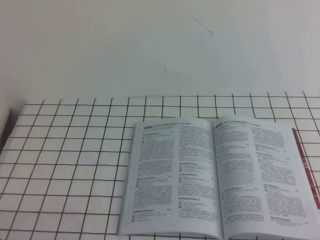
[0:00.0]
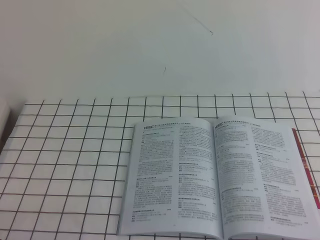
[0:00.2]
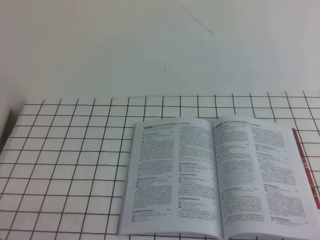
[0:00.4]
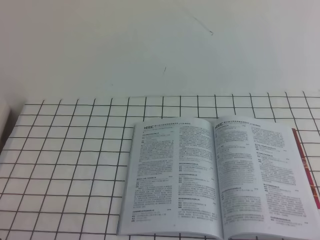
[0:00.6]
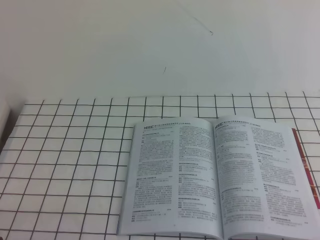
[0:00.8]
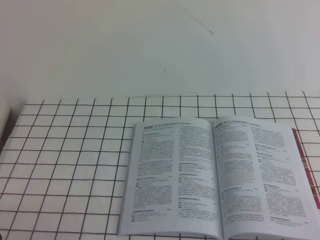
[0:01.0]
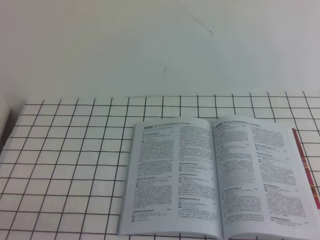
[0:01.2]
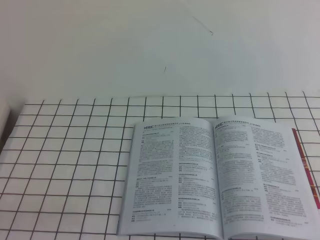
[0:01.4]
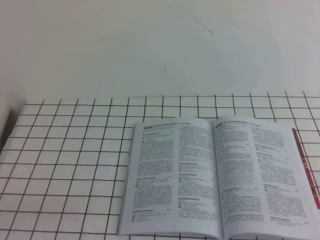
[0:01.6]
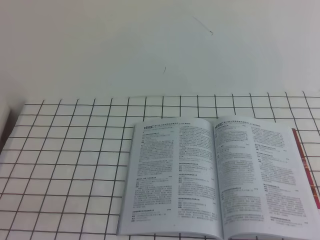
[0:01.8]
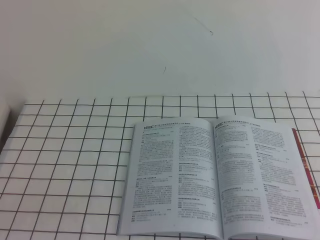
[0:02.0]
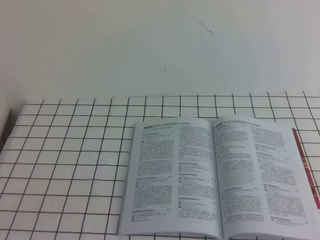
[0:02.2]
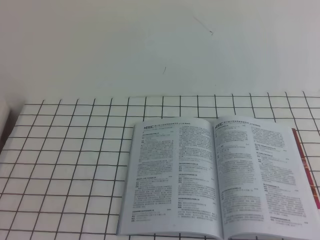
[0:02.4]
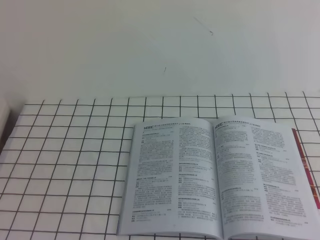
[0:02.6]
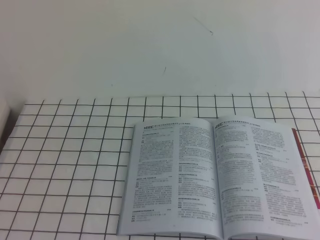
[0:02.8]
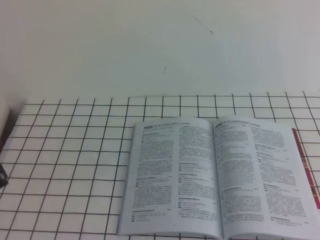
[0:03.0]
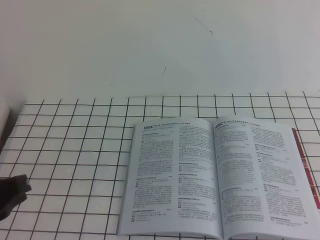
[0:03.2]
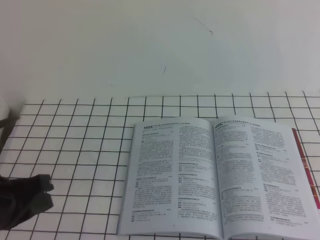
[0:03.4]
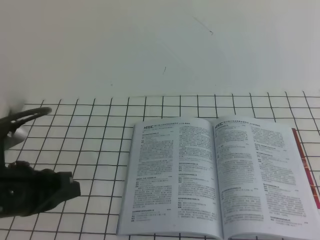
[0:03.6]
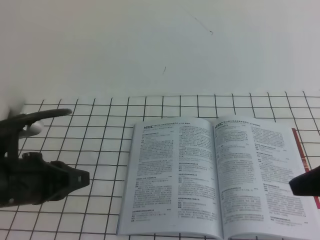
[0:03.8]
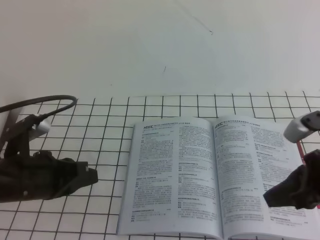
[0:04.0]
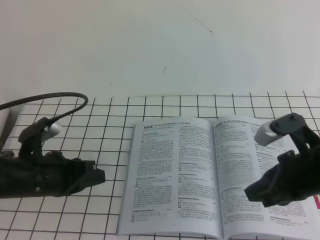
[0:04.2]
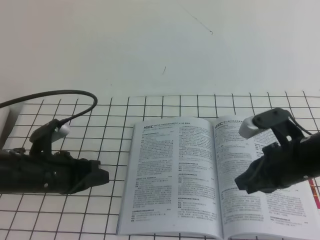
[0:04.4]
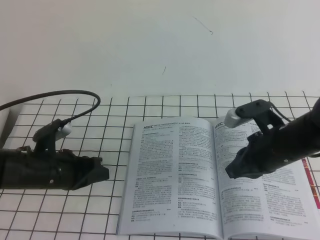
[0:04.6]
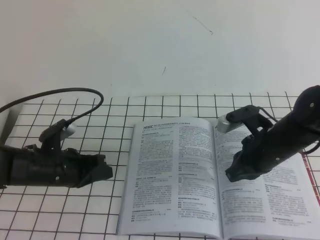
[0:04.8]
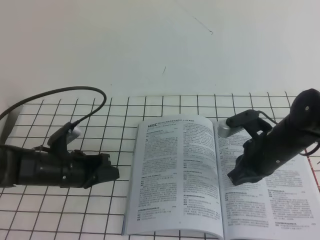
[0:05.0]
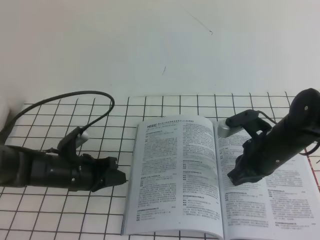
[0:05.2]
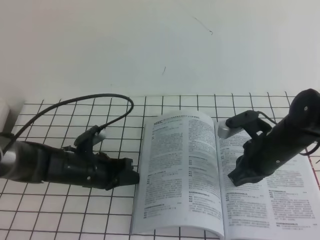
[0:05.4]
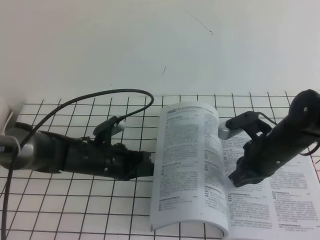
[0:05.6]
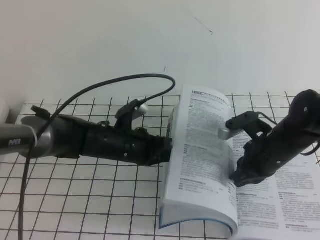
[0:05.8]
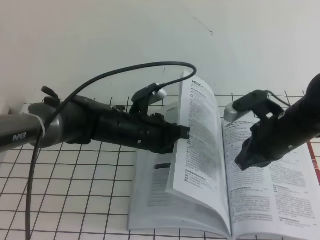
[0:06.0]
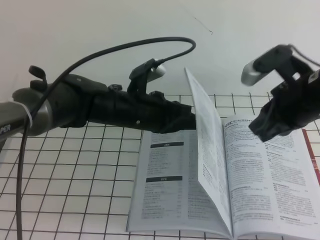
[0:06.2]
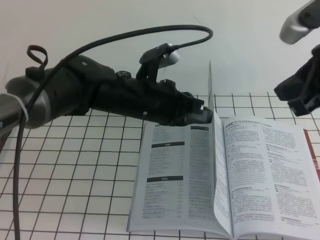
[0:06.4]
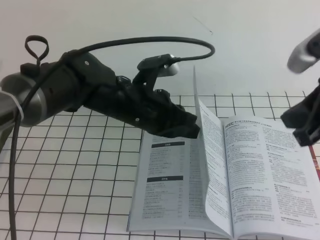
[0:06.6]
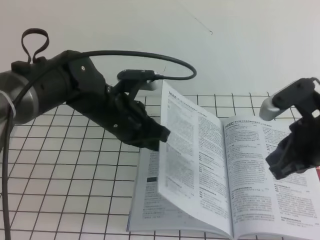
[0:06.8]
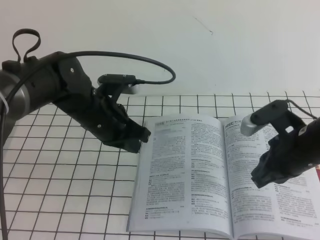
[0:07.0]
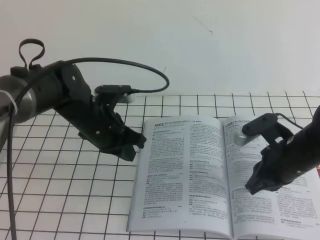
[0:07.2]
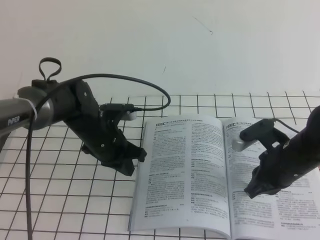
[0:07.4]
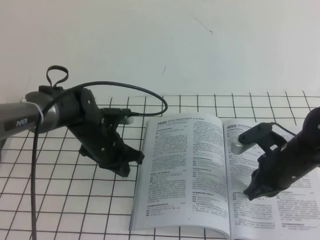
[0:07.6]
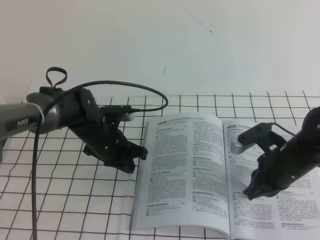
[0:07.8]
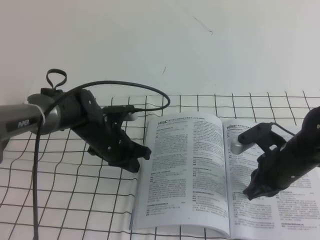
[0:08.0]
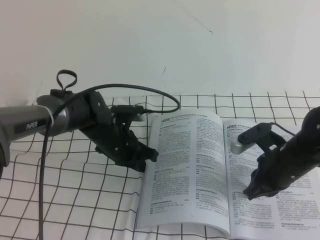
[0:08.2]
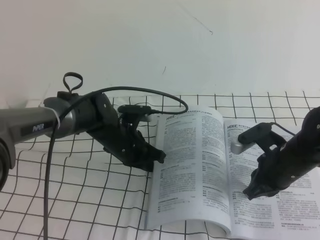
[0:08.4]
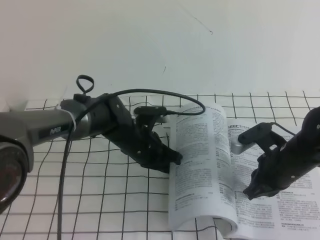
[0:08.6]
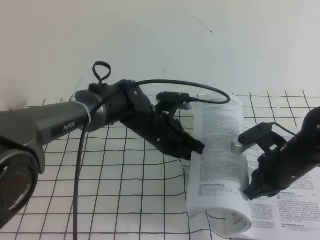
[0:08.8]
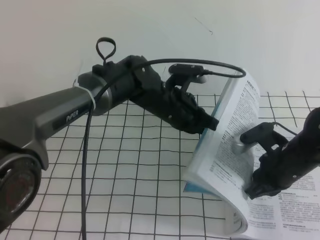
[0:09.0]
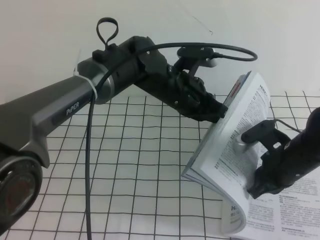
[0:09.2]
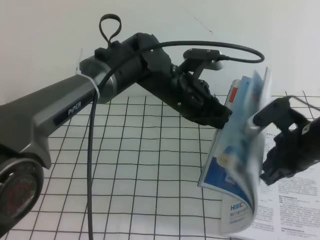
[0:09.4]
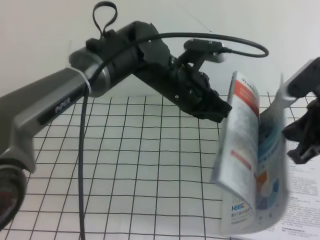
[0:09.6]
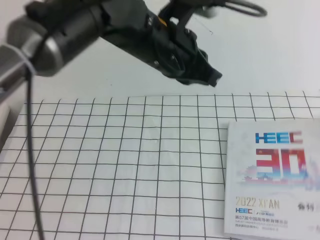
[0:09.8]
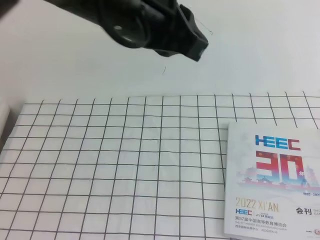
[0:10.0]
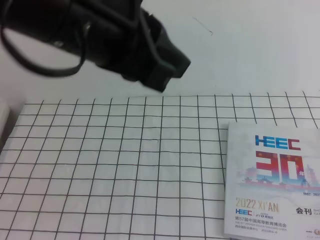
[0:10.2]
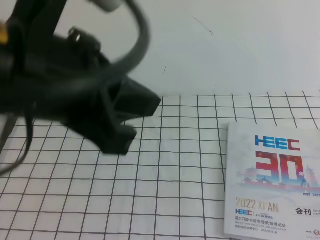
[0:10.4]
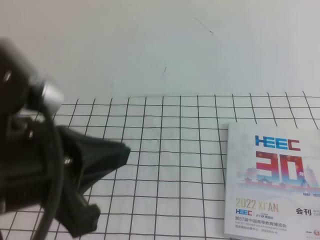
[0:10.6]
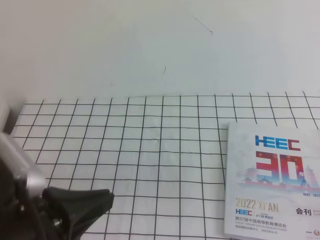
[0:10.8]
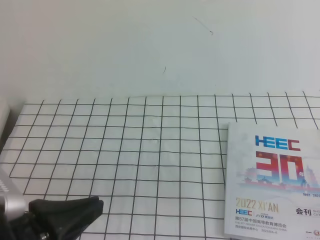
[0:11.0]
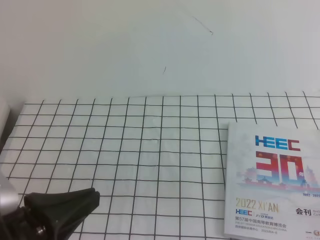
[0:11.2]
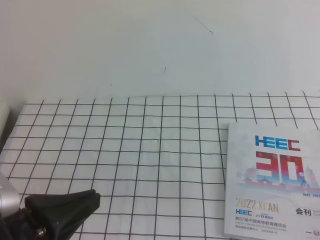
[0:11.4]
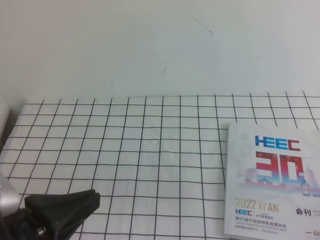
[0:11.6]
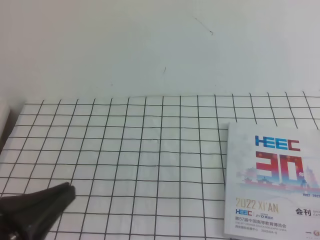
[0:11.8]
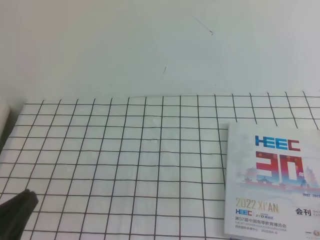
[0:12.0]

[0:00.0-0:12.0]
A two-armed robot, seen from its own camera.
Task of the whole recording: on the white tablecloth, hold the book with one hand and close it with the other.
0:03.0 to 0:04.4: The left gripper moves forward and downward, approximately 20 cm. The right gripper travels forward, downward and to the left by some 30 cm.
0:04.4 to 0:06.0: The right gripper heads forward, covering approximately 5 cm. Meanwhile the left gripper travels to the right and forward by roughly 15 cm.
0:06.0 to 0:07.6: The left gripper heads to the left, covering some 5 cm, and travels upward and back again, some 10 cm each way, while the right gripper travels upward and back again, about 15 cm each way.
0:07.6 to 0:09.0: The left gripper goes approximately 15 cm to the right and upward.
0:09.0 to 0:10.4: The left gripper is displaced upward, backward and to the left by roughly 35 cm; the right gripper goes approximately 40 cm backward and upward.
0:10.4 to 0:12.0: The left gripper travels downward, to the left and backward by about 25 cm; the right gripper heads downward, covering about 15 cm.

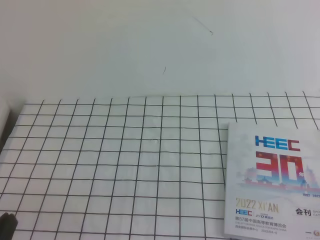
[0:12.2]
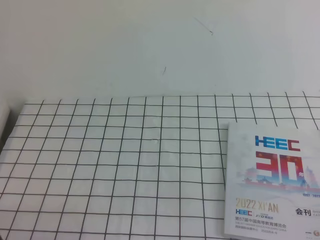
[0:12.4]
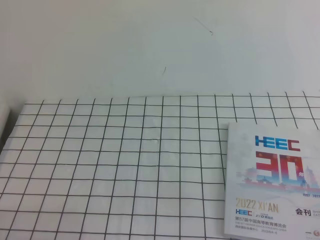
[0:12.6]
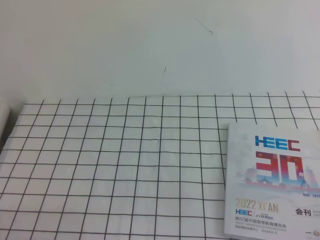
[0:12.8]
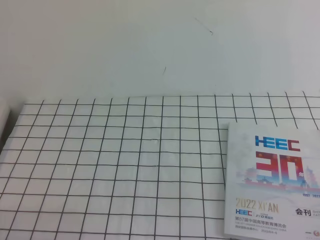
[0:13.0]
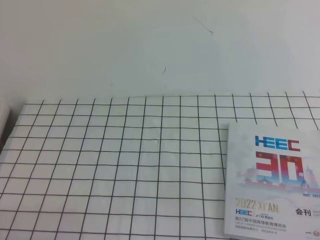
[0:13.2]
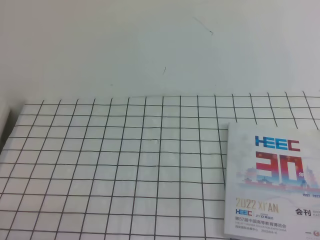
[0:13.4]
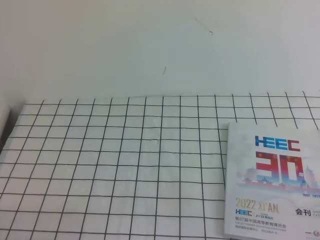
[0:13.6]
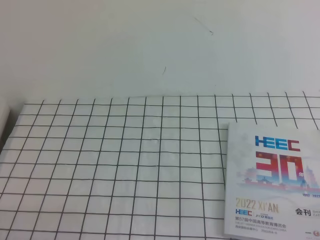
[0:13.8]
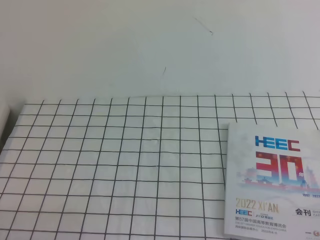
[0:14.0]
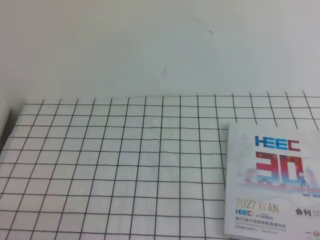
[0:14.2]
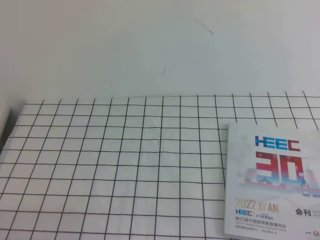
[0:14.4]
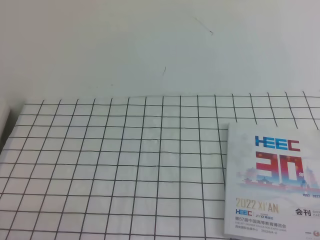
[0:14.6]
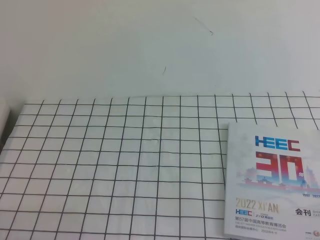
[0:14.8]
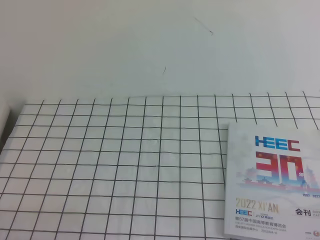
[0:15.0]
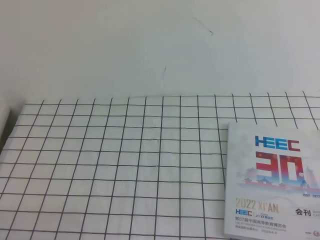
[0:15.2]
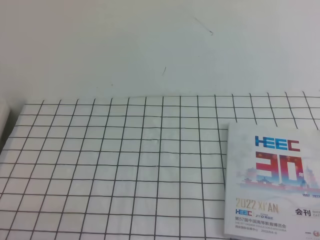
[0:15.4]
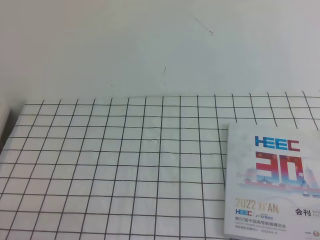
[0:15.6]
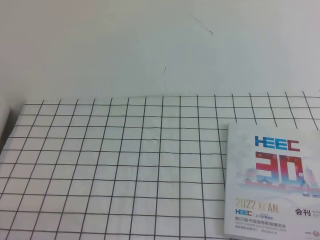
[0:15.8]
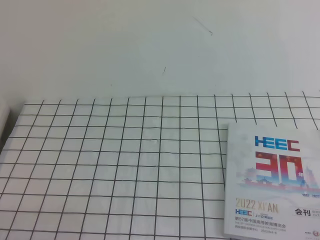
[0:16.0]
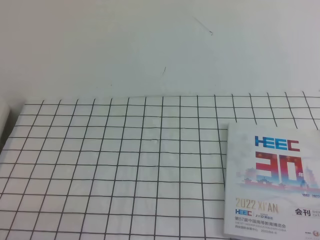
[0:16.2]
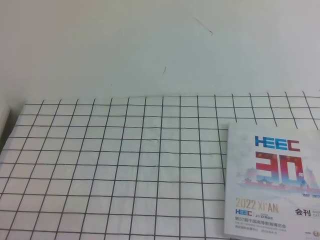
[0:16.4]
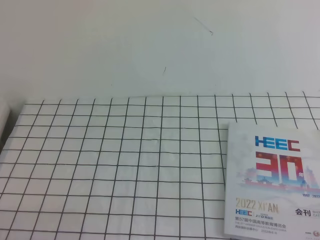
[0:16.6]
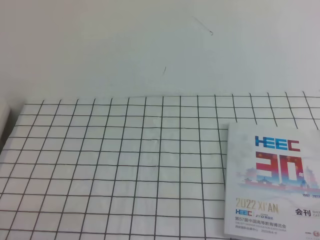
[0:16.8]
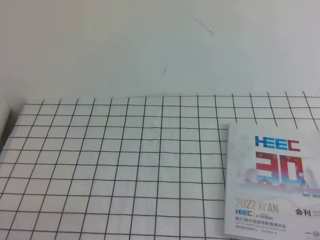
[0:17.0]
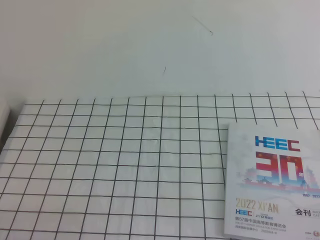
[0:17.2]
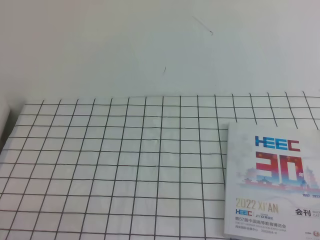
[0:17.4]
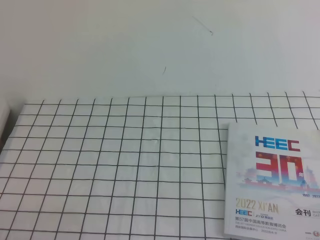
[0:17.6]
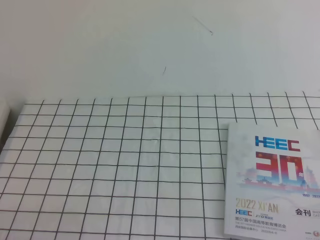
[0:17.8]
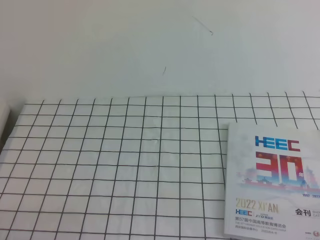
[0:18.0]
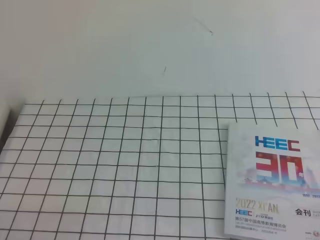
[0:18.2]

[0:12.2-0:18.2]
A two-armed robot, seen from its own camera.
Task of the whole recording: on the white tablecloth, hold the book with one hand and close it with the other.
0:15.2 to 0:18.2: The two grippers keep their place.

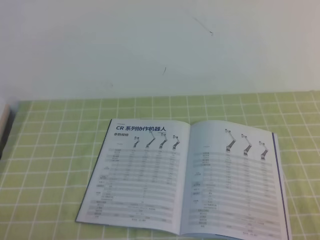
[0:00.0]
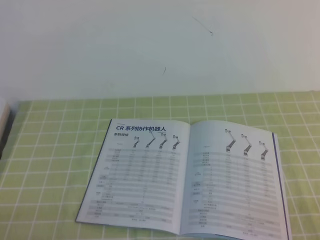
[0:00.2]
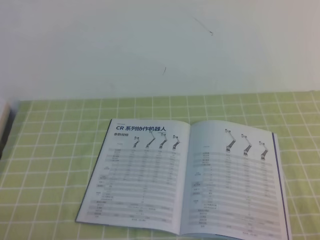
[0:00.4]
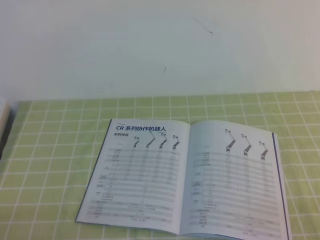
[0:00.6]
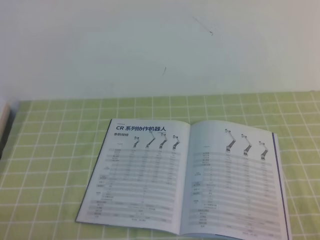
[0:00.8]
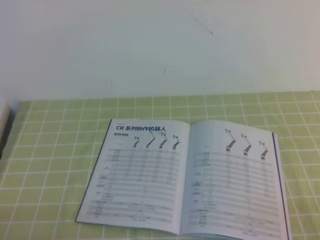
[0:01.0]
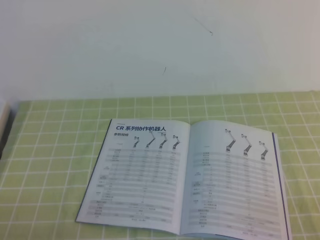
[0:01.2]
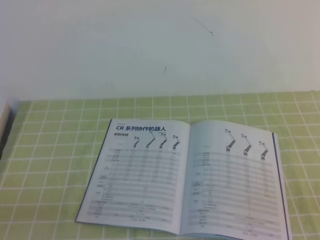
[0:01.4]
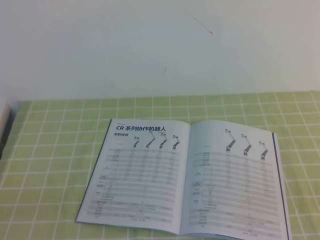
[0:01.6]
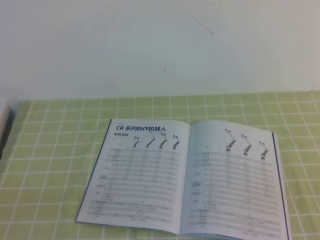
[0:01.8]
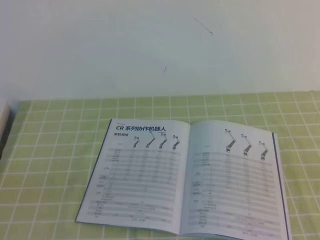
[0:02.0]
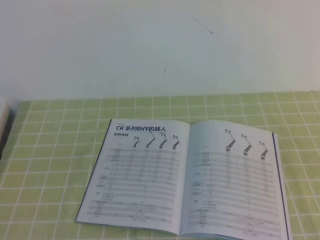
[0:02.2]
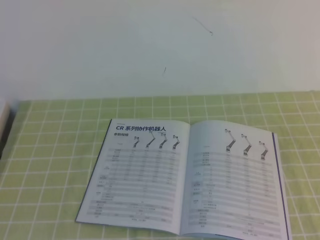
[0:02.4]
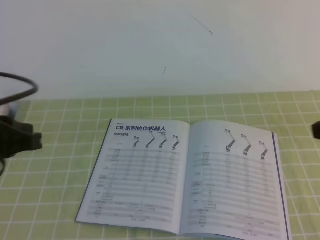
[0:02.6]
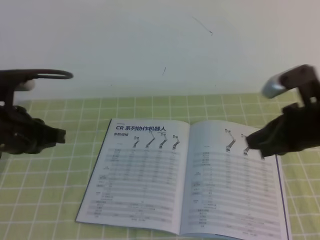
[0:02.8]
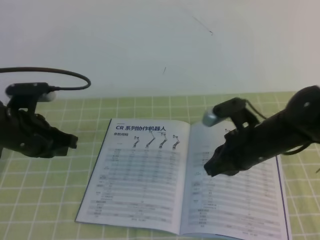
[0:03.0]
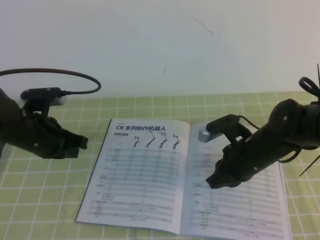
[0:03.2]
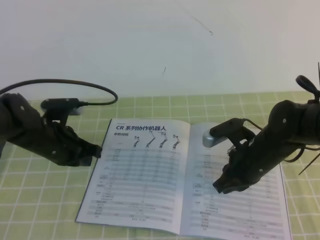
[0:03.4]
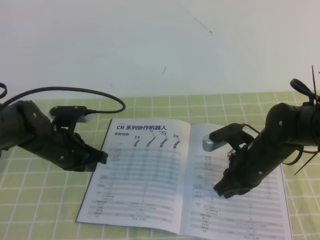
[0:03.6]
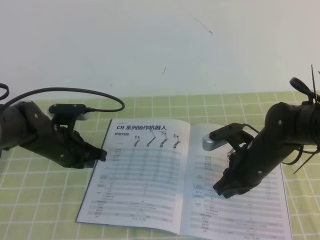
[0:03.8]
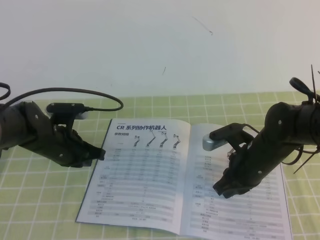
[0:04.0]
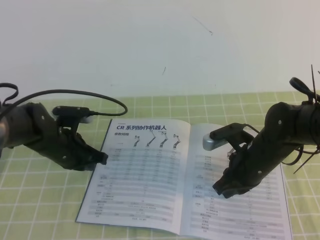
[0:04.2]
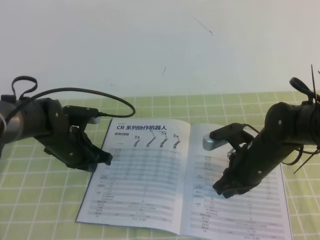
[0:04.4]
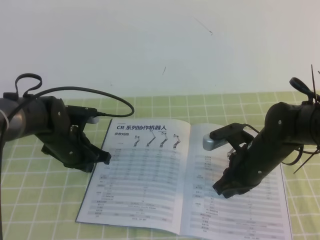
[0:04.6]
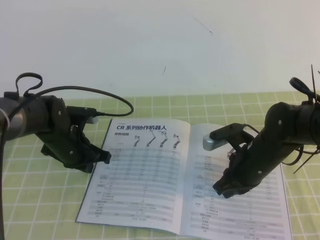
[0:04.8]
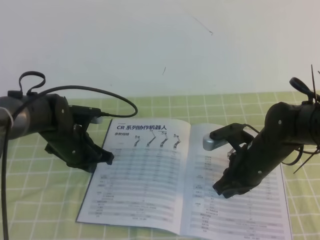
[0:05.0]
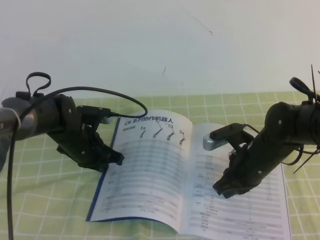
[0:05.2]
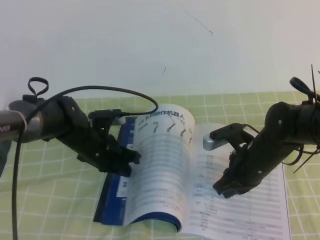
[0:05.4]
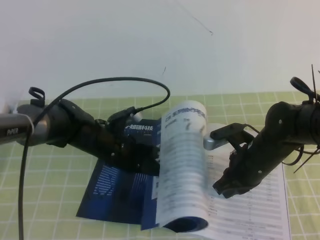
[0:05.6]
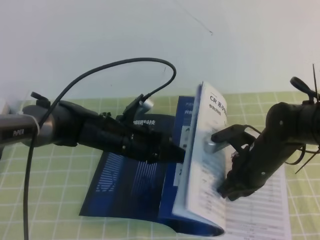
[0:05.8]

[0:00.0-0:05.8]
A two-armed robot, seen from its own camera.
Task of the whole recording: on the green tablecloth, hold the book with one hand and close it with the other.
0:01.4 to 0:02.8: The right gripper shifts roughly 25 cm forward and to the left, while the left gripper goes approximately 20 cm forward and upward.
0:02.8 to 0:04.4: The left gripper travels downward and forward by some 20 cm; the right gripper moves downward and to the left, roughly 15 cm.
0:04.4 to 0:05.8: The left gripper travels to the right by roughly 10 cm.
